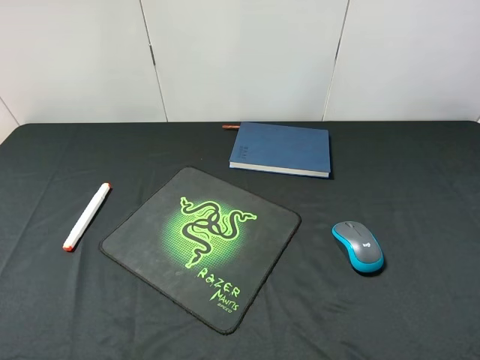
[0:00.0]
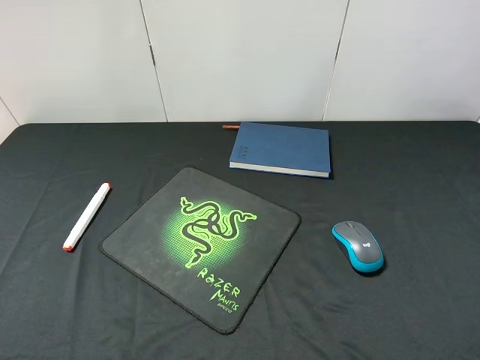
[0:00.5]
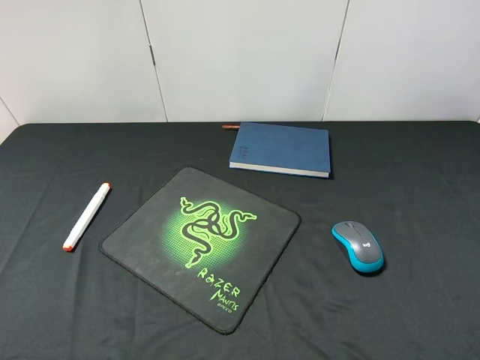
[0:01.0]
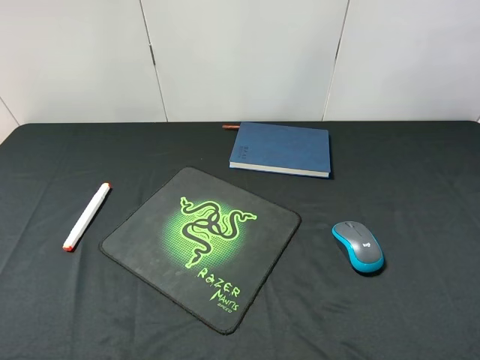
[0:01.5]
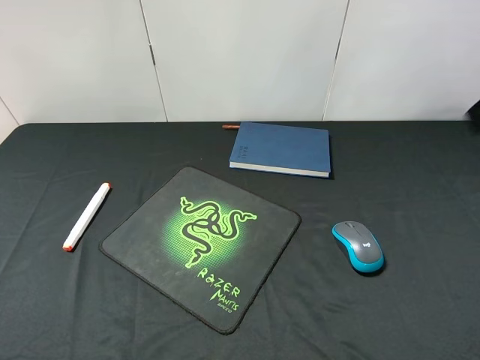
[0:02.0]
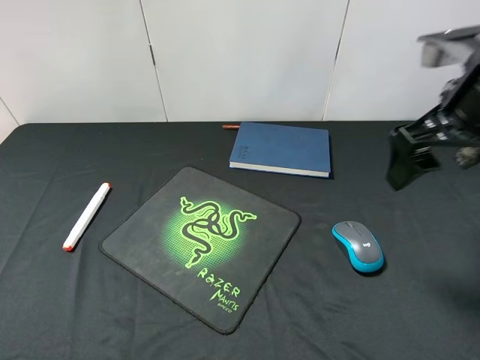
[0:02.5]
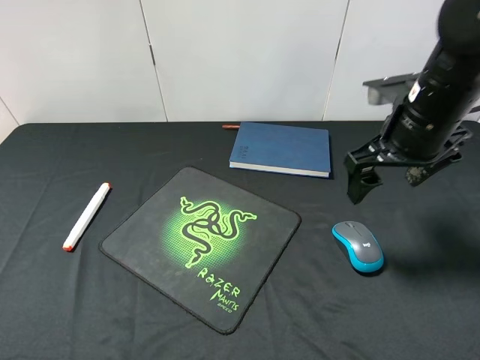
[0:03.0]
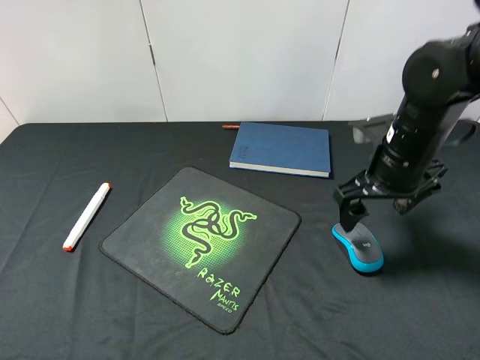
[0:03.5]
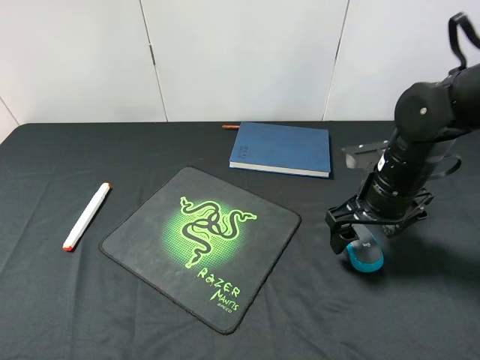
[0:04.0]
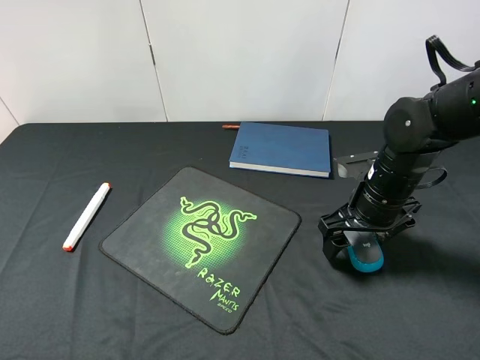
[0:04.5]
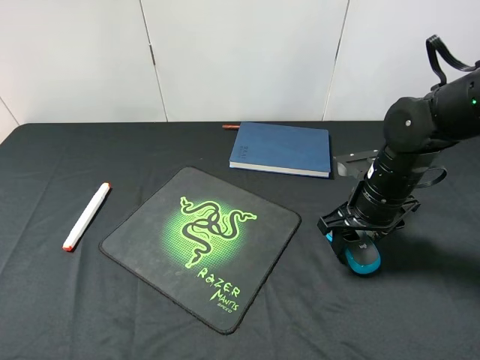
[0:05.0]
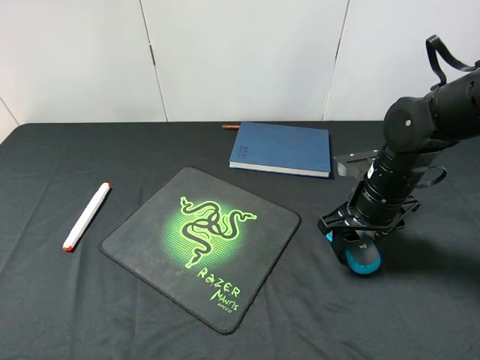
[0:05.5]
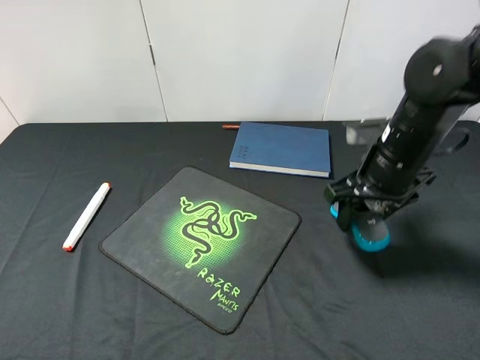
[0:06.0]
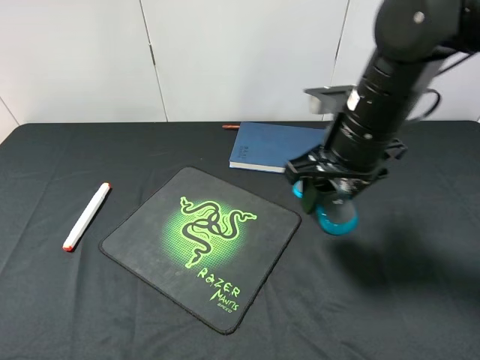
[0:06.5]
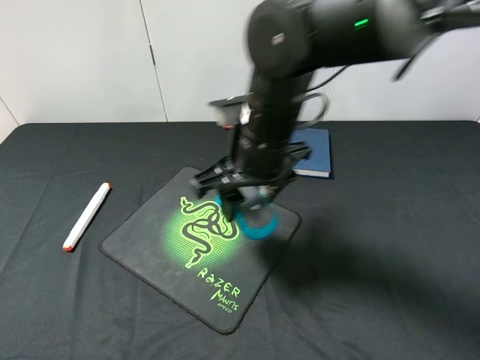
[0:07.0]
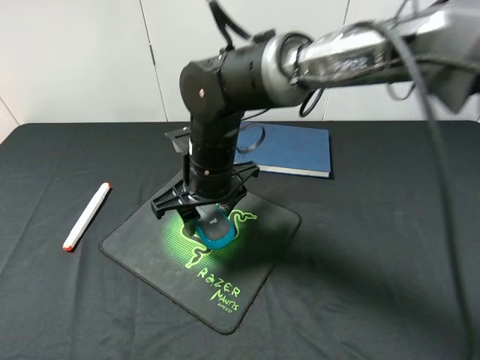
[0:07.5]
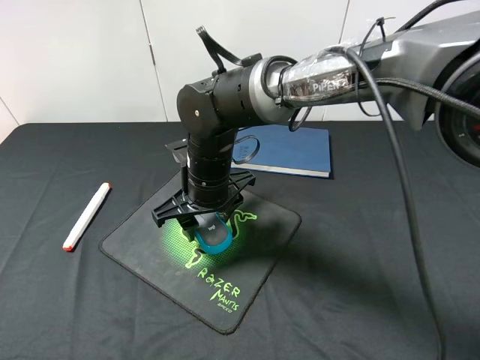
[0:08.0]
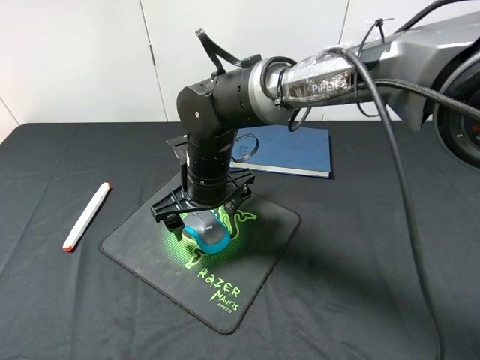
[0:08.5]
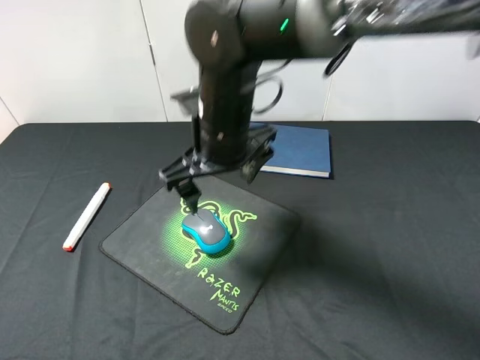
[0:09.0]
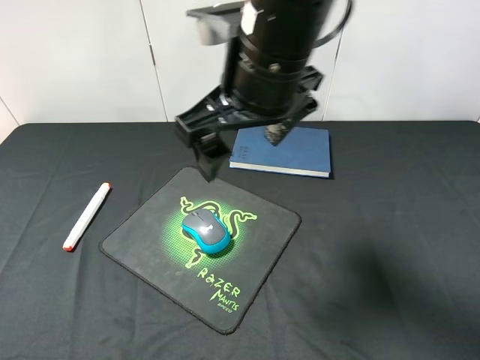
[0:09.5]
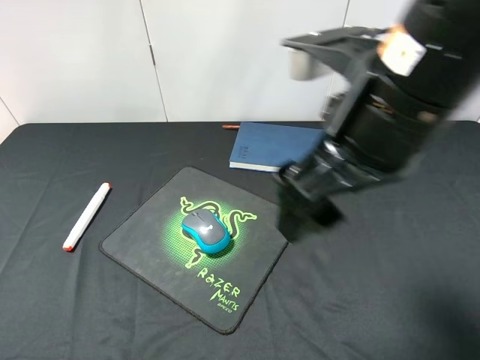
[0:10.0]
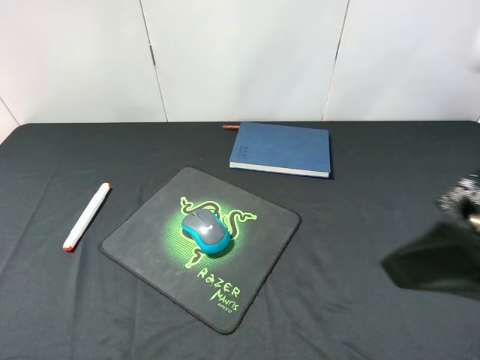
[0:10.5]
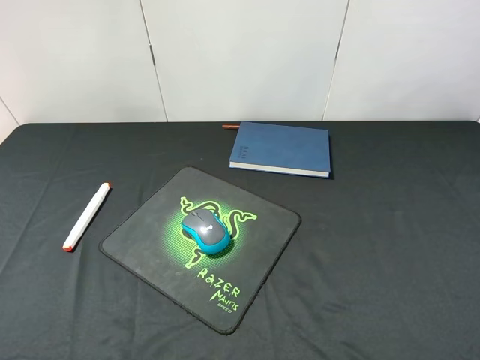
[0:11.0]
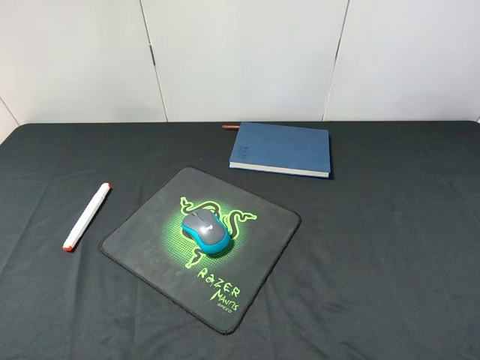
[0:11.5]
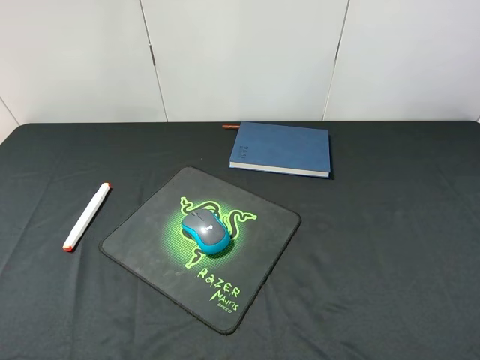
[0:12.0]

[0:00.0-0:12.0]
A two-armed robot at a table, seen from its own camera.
Step, 0:00.0 to 0:06.0: Pick up the mouse with right gripper.
Step, 0:06.5 to 0:08.5: Place the mouse on the mouse pad with right gripper.
0:02.0 to 0:04.0: The right gripper moves downward and forward, some 25 cm.
0:04.0 to 0:06.0: The right gripper goes approximately 5 cm upward, and closes its fingers.
0:06.0 to 0:08.0: The right gripper shifts some 25 cm to the left.
0:08.0 to 0:10.0: The right gripper is displaced upward, to the right and backward by approximately 30 cm, and opens its fingers.
0:10.0 to 0:12.0: The right gripper goes approximately 25 cm to the right and backward.

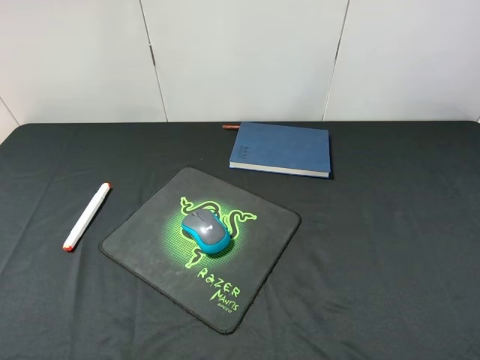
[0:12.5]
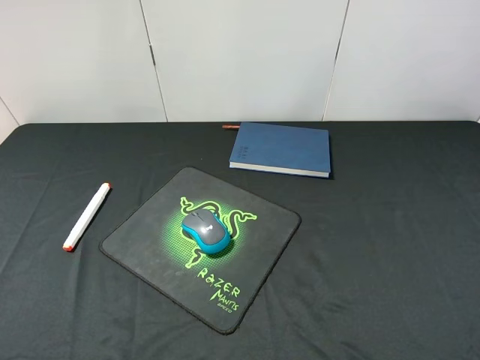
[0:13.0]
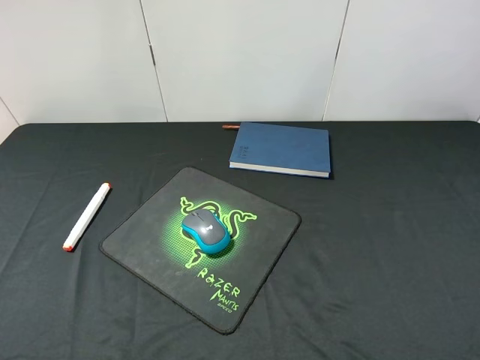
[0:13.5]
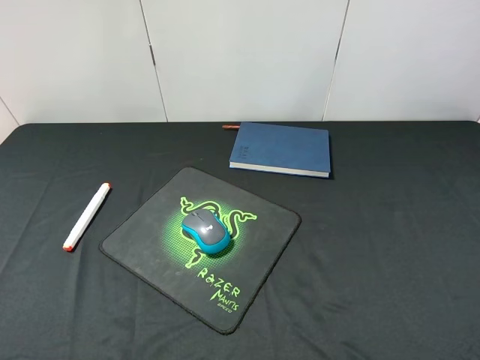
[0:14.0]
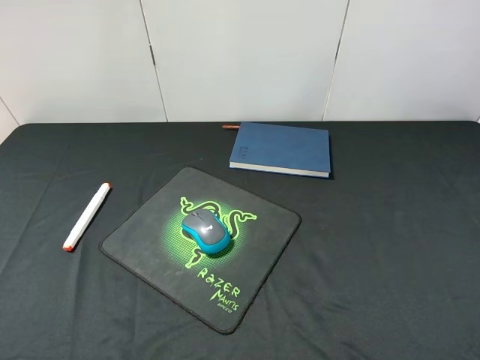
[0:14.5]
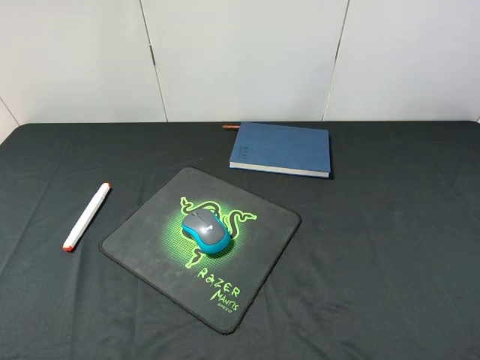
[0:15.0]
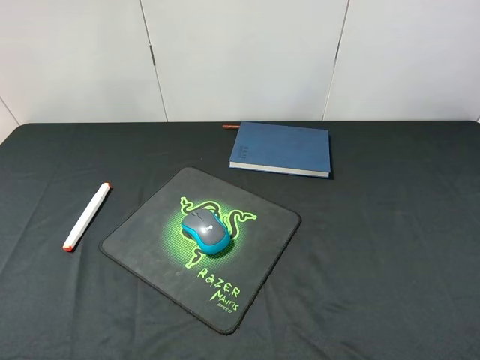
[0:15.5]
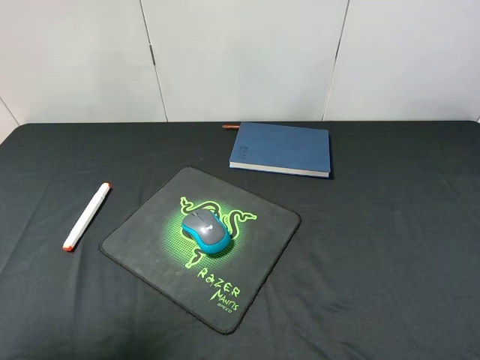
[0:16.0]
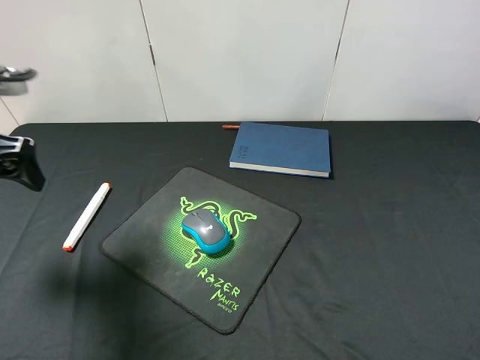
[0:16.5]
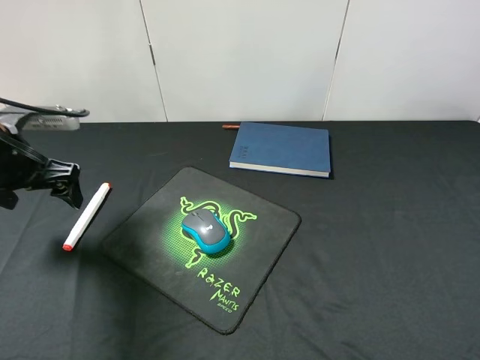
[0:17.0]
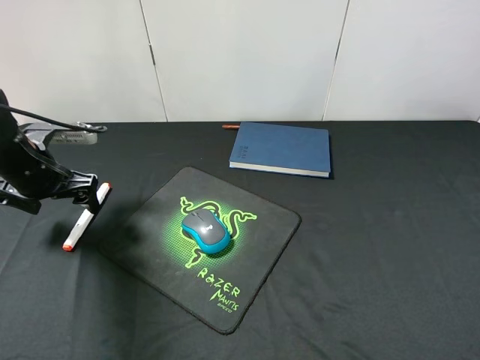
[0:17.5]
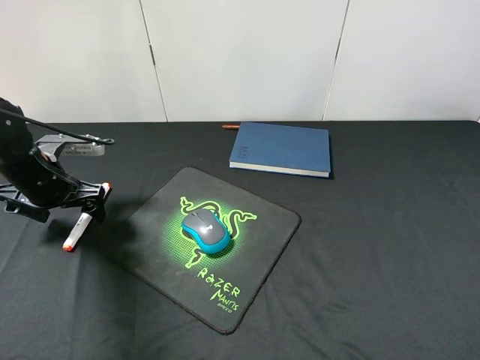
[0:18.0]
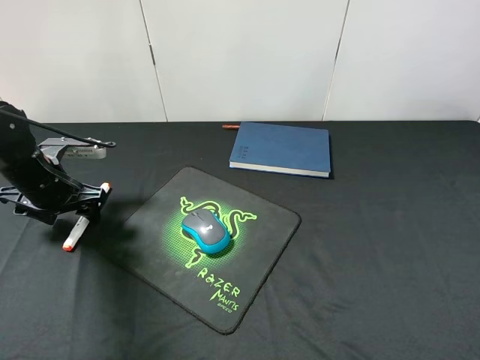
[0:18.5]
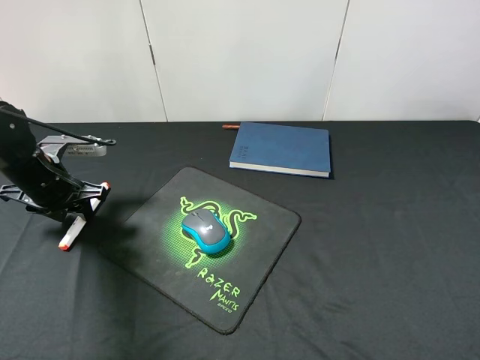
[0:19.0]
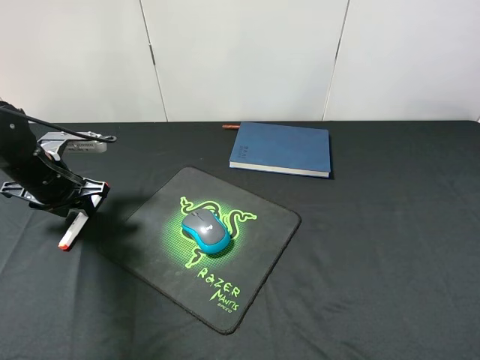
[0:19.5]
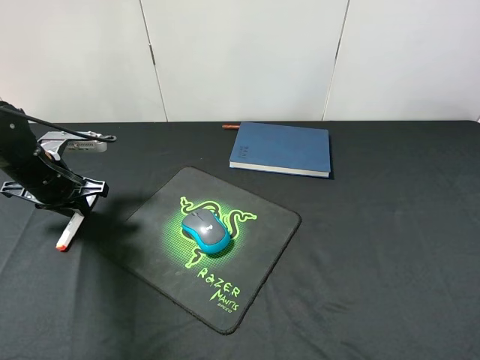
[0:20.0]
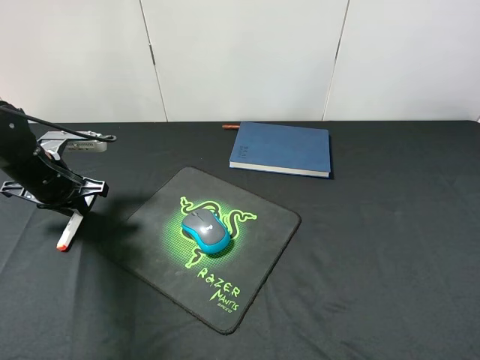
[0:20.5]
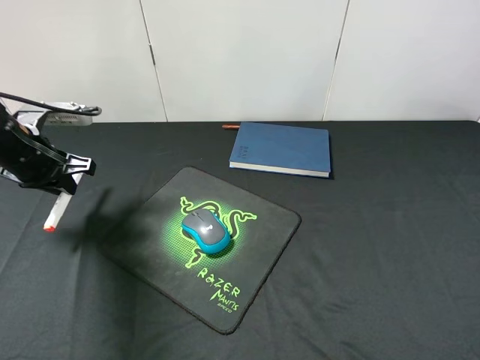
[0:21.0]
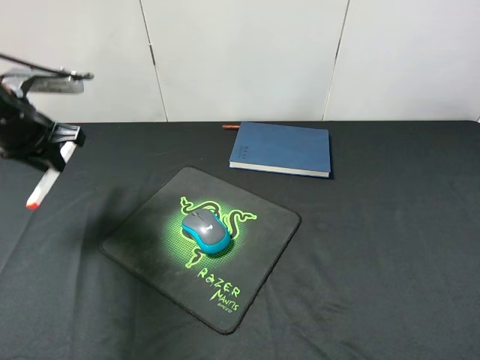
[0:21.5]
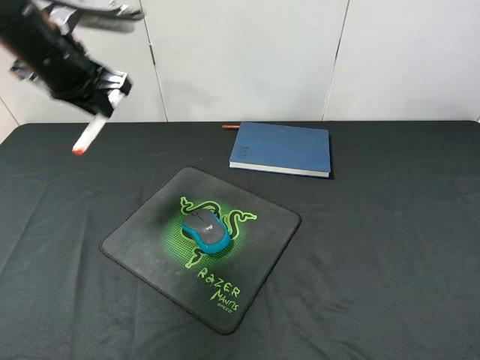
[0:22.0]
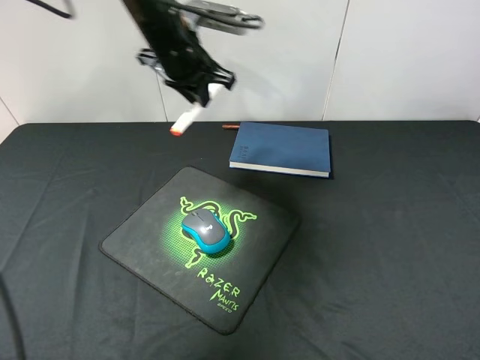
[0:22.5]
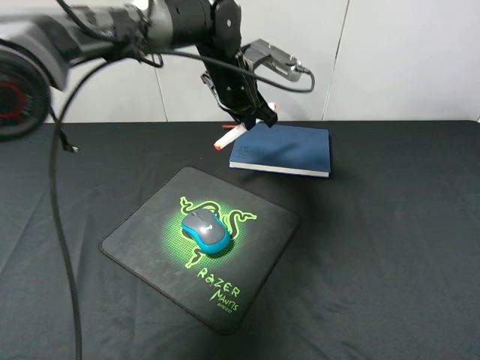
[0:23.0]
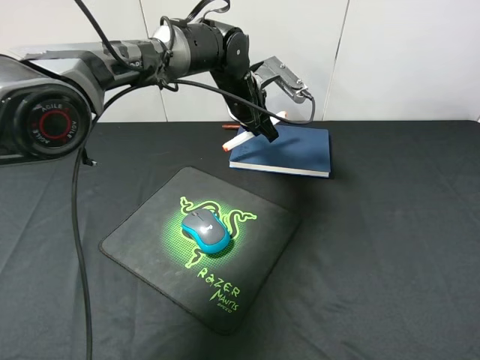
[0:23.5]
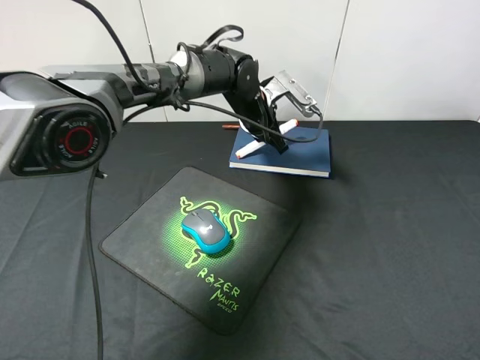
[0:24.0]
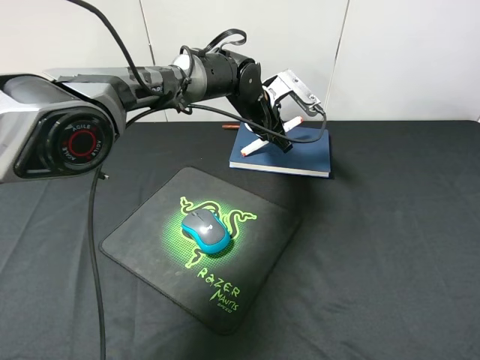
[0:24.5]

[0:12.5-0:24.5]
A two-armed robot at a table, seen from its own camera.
Step, 0:12.5 to 0:21.0: Pick up the marker pen with left gripper.
0:12.5 to 0:14.5: The two grippers keep their place.
0:14.5 to 0:16.5: The left gripper heads forward, covering roughly 25 cm.
0:16.5 to 0:18.5: The left gripper heads downward and forward, covering some 15 cm.
0:18.5 to 0:20.5: The left gripper closes.
0:20.5 to 0:22.5: The left gripper travels to the right, upward and forward by approximately 30 cm.
0:22.5 to 0:24.5: The left gripper heads downward and to the right, covering approximately 15 cm.

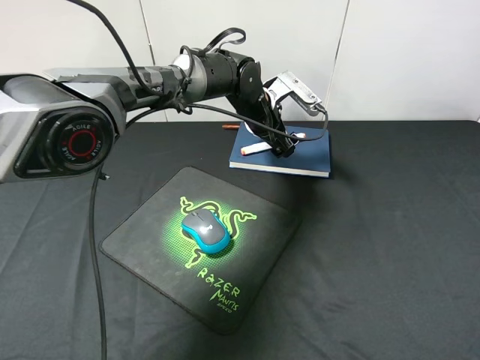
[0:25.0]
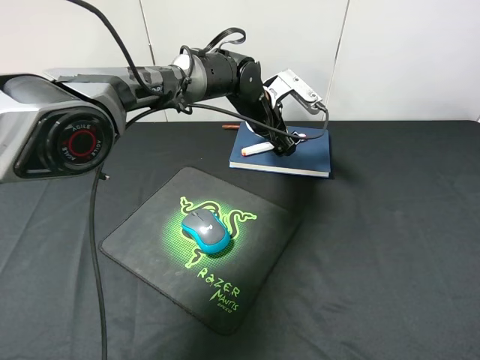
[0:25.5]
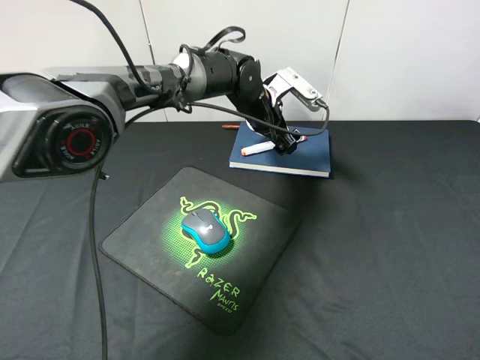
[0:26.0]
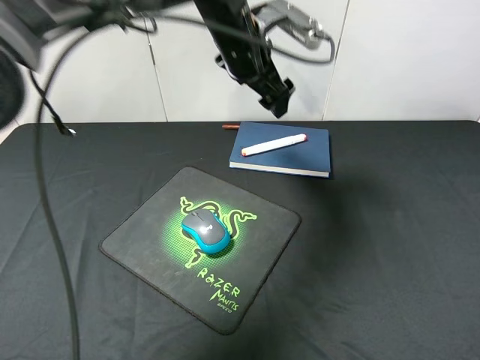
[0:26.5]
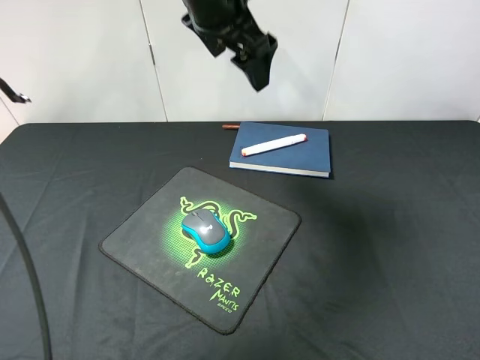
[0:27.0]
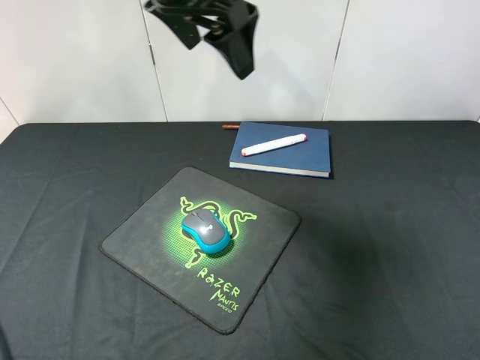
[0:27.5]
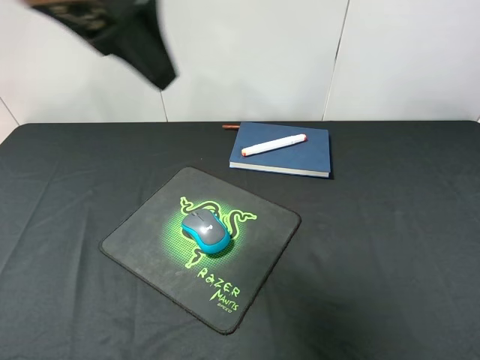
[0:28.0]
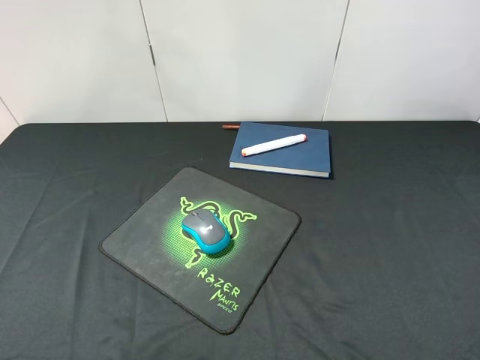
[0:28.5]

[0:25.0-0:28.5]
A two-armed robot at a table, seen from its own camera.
0:25.0 to 0:27.0: The left gripper travels upward by approximately 20 cm.
0:27.0 to 0:28.5: The left gripper heads backward and to the left, covering approximately 35 cm.
